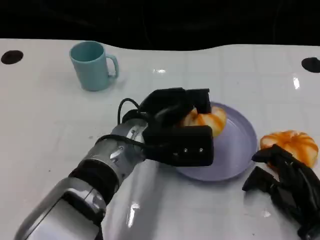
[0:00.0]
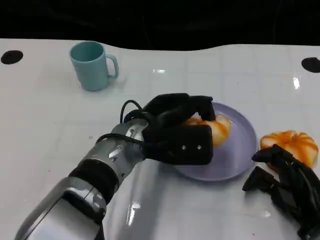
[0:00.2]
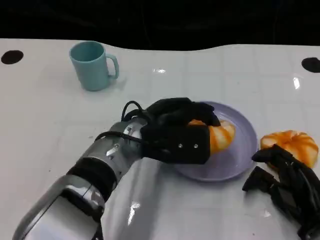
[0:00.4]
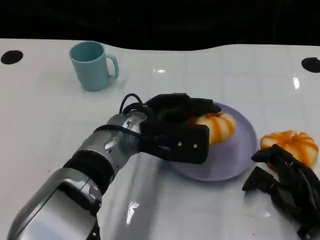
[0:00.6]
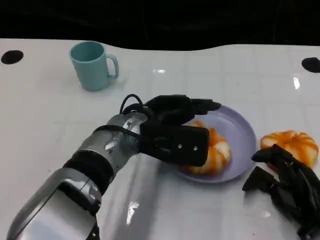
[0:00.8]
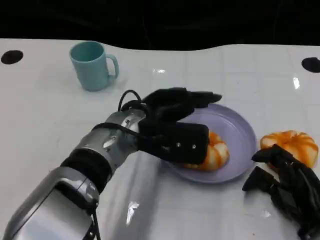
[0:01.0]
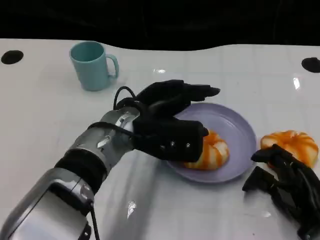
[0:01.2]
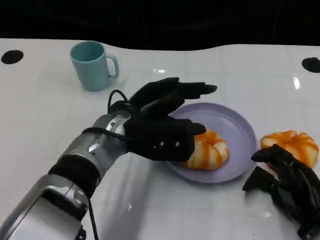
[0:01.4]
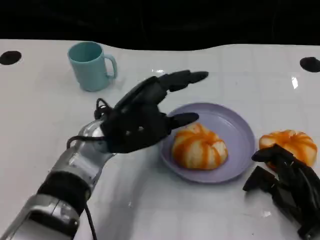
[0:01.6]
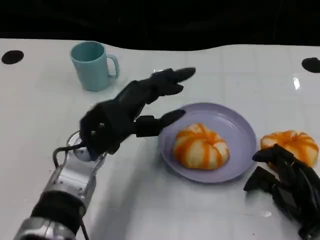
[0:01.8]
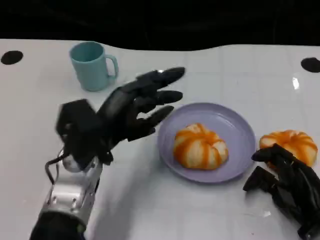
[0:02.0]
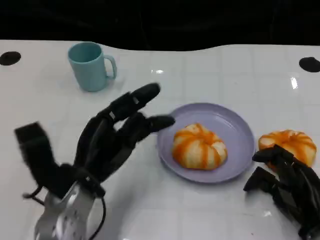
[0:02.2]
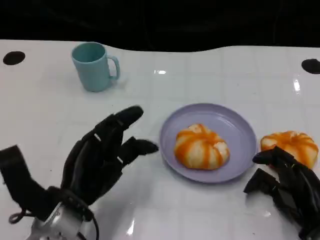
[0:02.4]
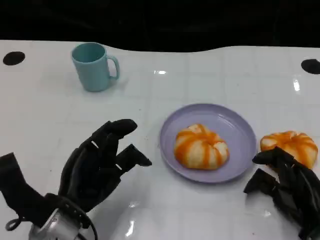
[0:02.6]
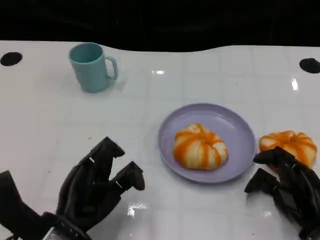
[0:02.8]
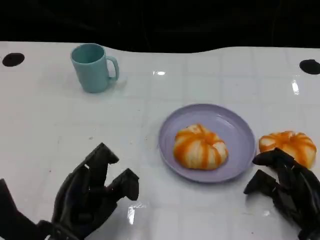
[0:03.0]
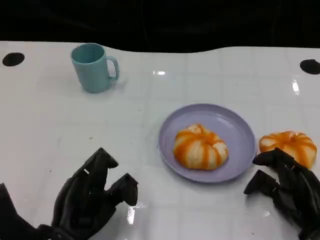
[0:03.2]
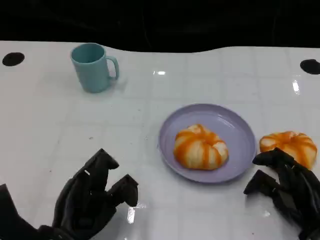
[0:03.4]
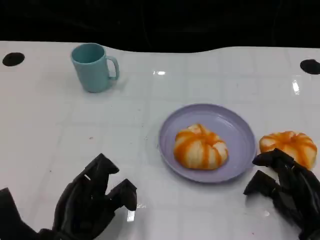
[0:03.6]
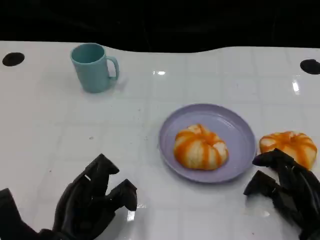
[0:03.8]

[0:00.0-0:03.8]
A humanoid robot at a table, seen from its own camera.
Task of the whole recording: Grasp the bread from the table and place it into the plate.
0:00.0 to 0:01.2: The hands make only small movements.
0:01.2 to 0:02.6: The left hand goes some 15 cm to the left, backward and downward.
0:02.6 to 0:03.8: The hands make only small movements.
